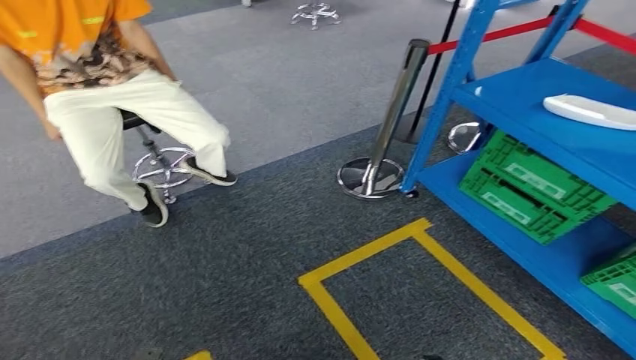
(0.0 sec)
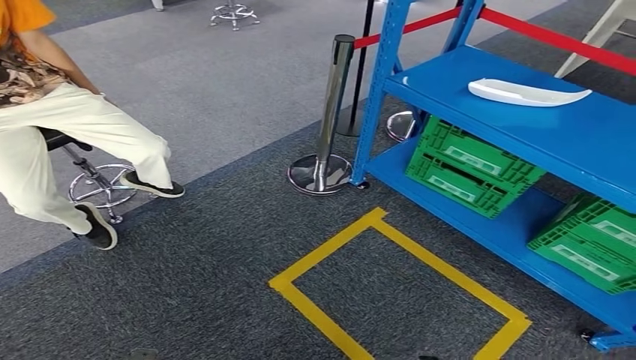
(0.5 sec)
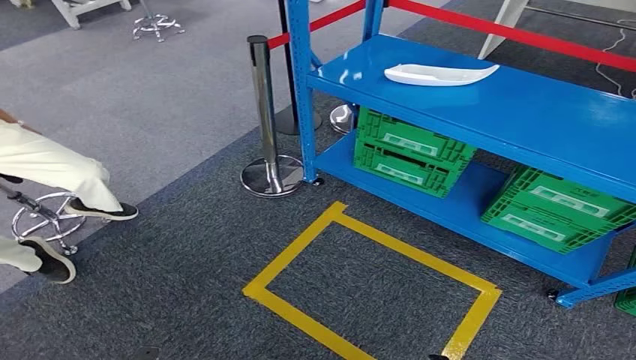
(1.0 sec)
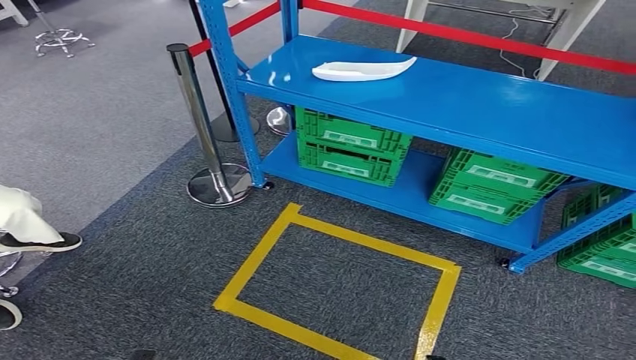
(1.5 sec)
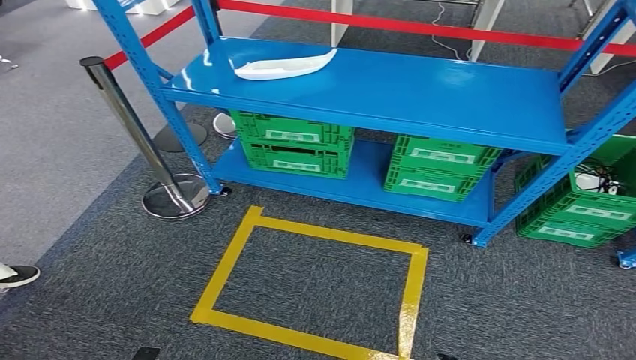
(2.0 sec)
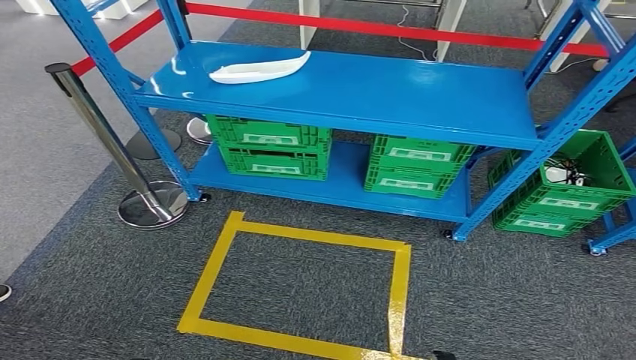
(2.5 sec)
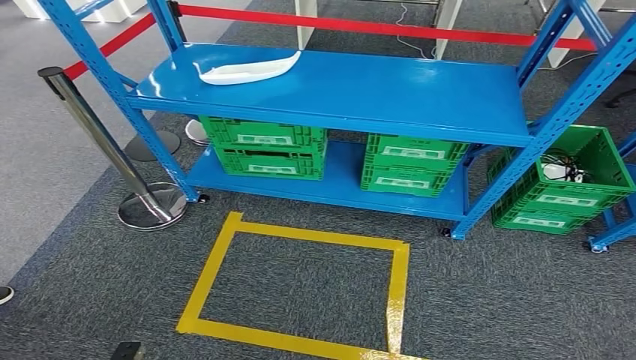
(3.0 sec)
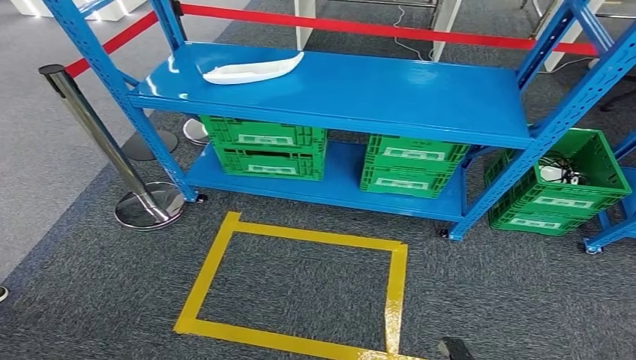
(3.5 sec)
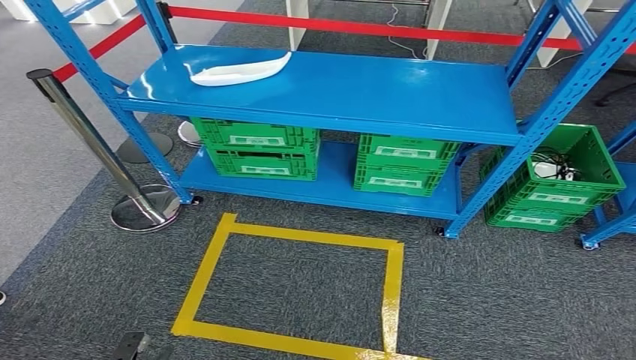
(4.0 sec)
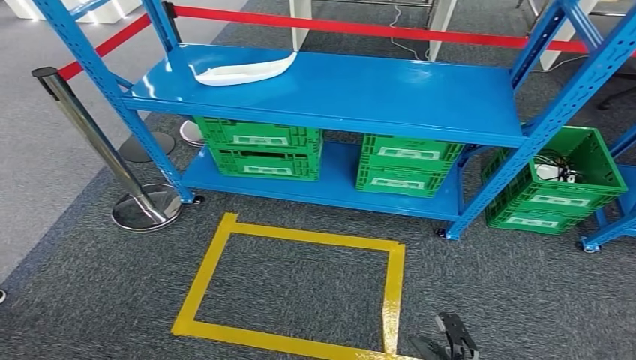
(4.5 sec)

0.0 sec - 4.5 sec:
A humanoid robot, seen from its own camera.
Step, 0.0 sec - 4.5 sec: Return to the initial position at the workbench.
